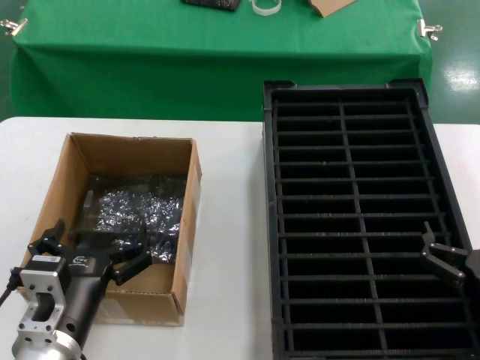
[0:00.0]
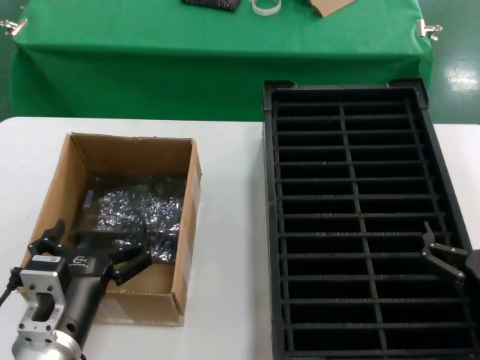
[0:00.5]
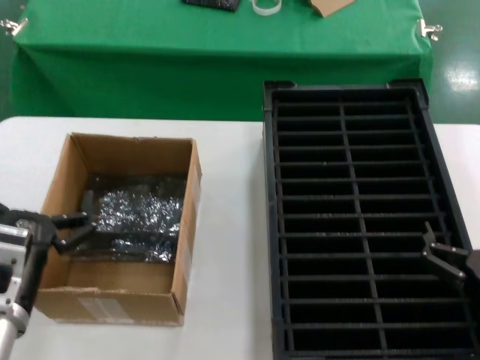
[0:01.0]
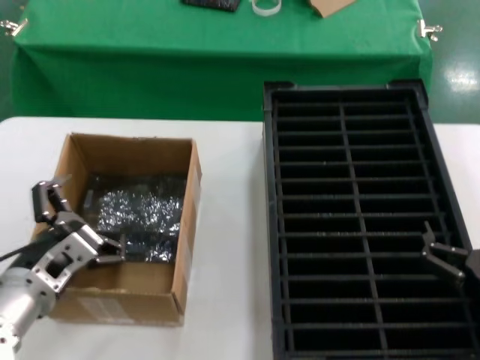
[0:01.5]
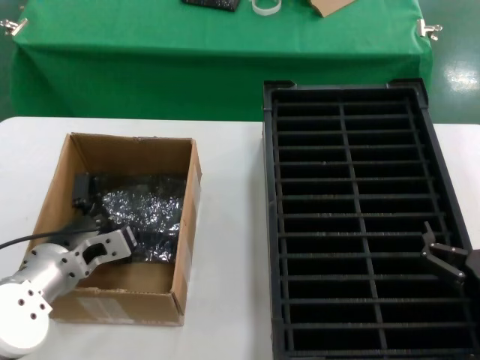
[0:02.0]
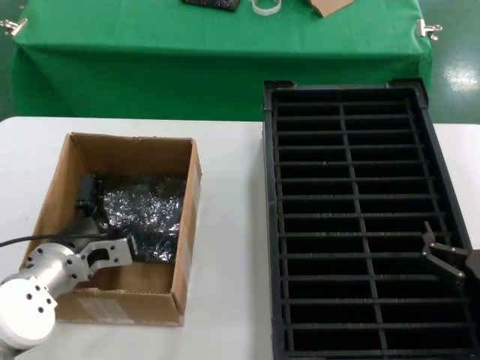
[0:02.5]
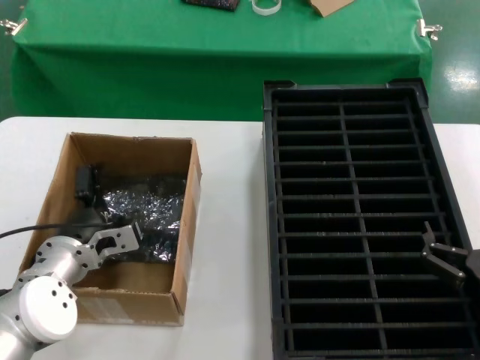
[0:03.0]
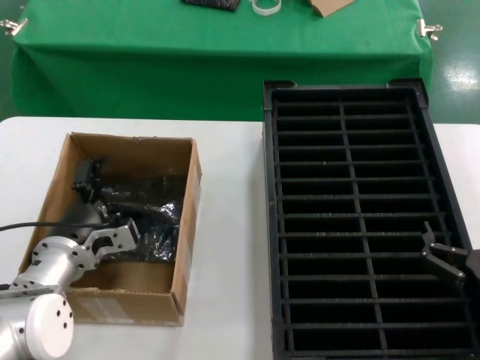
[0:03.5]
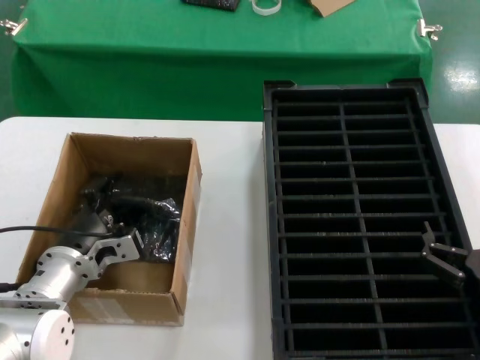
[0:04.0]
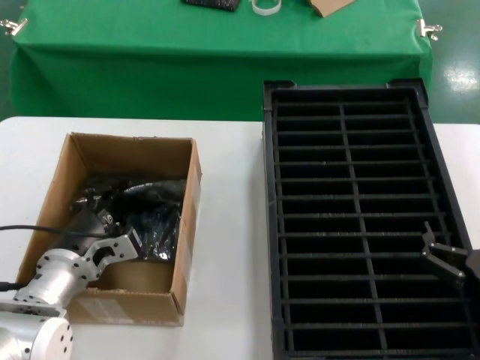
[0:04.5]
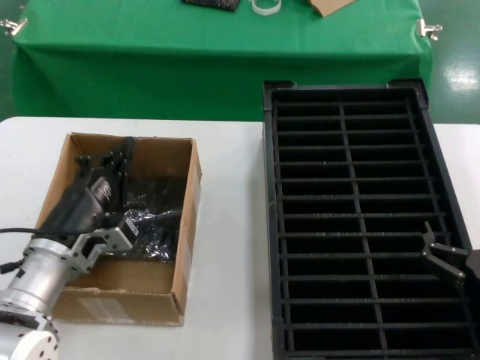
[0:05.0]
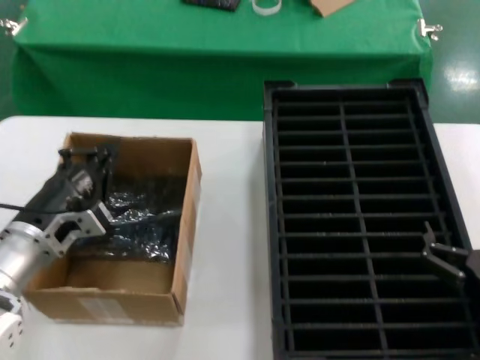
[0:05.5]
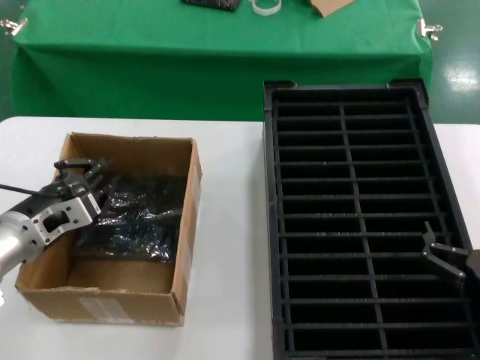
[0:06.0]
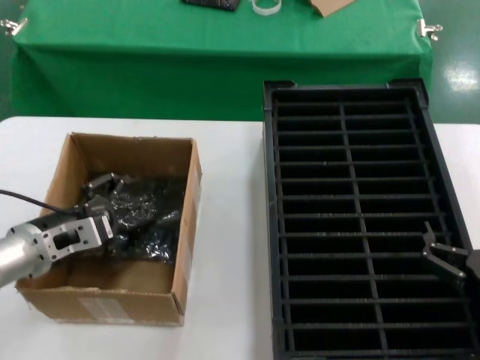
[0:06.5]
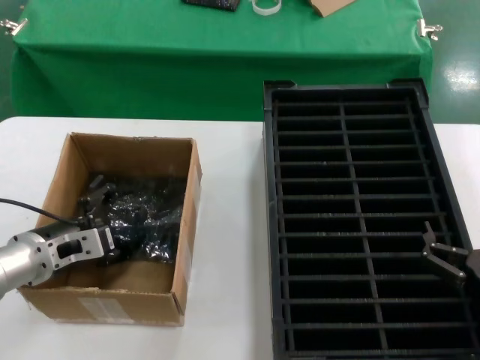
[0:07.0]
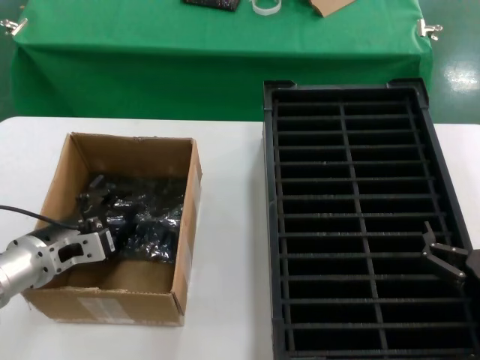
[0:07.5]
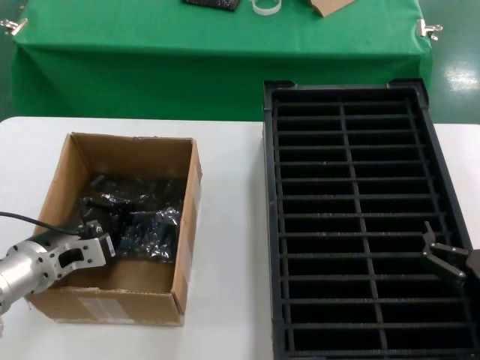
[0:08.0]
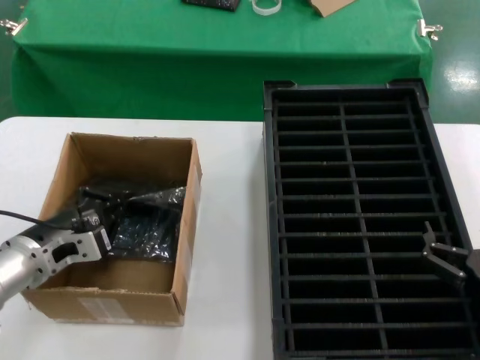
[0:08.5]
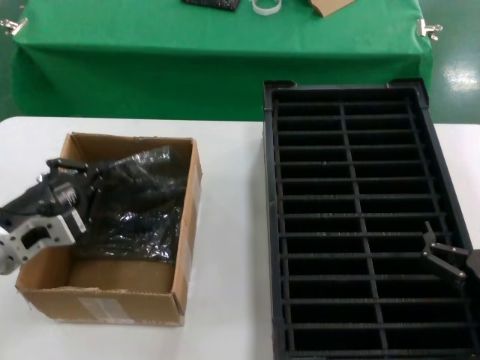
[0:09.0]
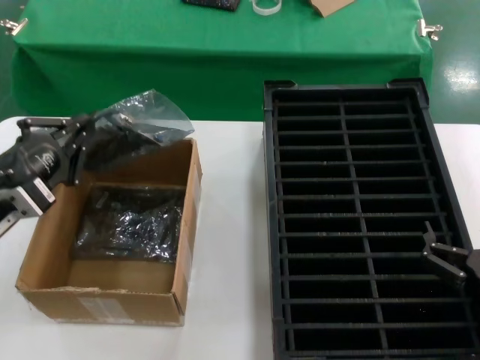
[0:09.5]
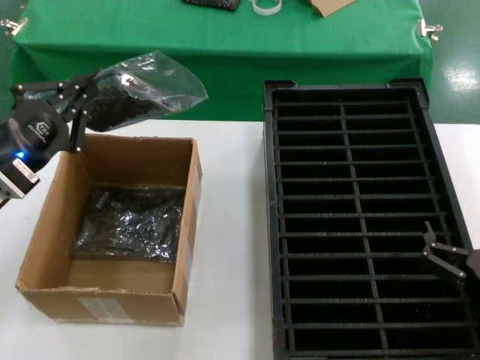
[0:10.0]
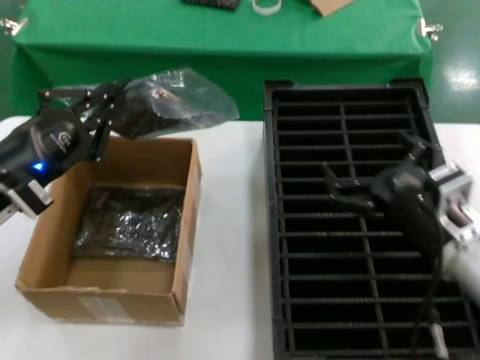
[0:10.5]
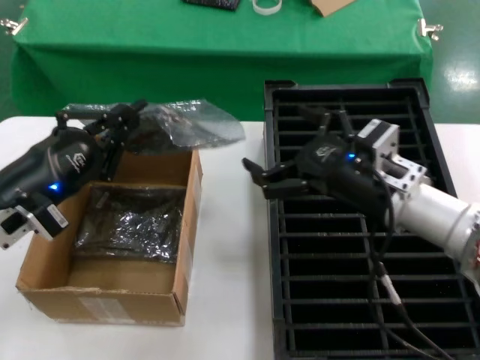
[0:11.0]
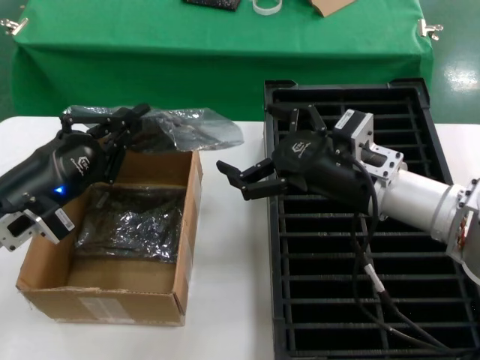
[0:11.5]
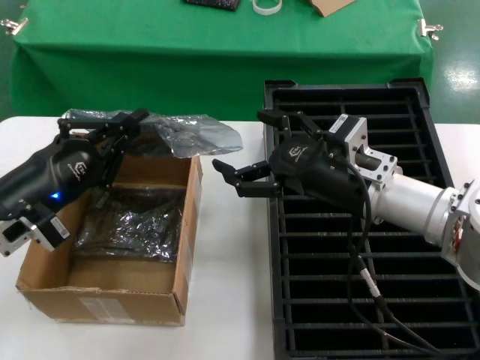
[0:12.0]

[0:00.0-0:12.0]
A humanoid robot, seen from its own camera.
Task of the whole recording: take out graphics card from box remove packaging put into black container.
Step, 0.0 to 8.0 s: Grasp the bag.
Step, 8.5 to 10.0 s: Lift the bag.
0.0 to 2.0 s: The left hand moves forward and to the left, approximately 15 cm.
2.0 to 4.0 s: The left hand shifts by some 5 cm.
4.0 to 6.0 s: The left hand is displaced to the left and upward by roughly 10 cm.
6.0 to 8.0 s: The hands move only a little.
8.0 to 10.0 s: The left hand goes some 10 cm upward.
10.0 to 12.0 s: The right hand shifts roughly 25 cm forward, upward and to the left.

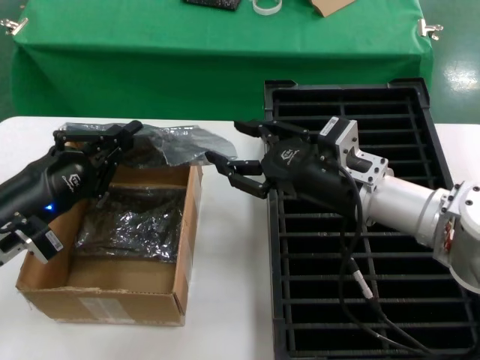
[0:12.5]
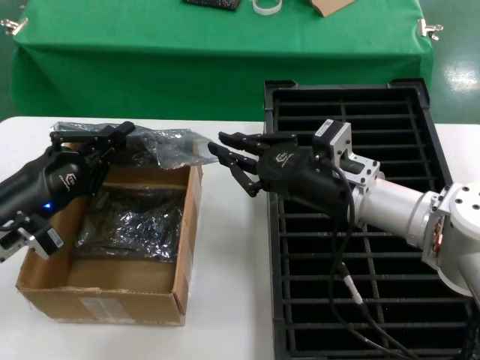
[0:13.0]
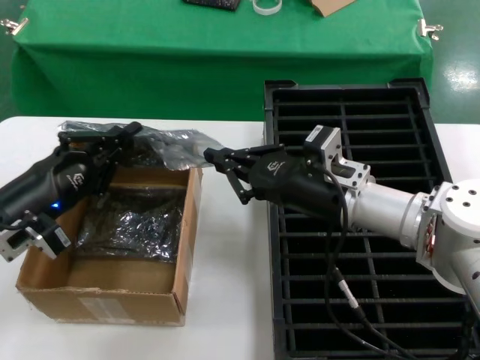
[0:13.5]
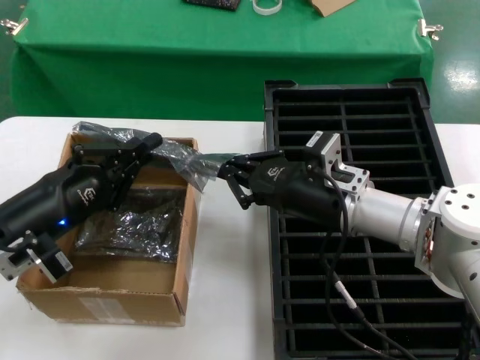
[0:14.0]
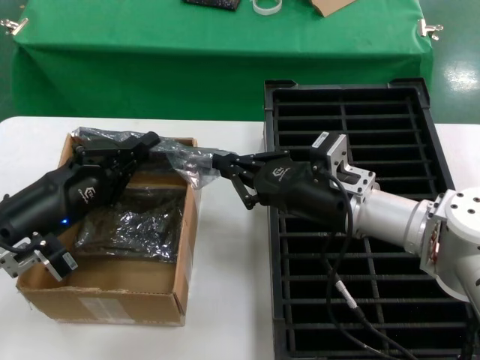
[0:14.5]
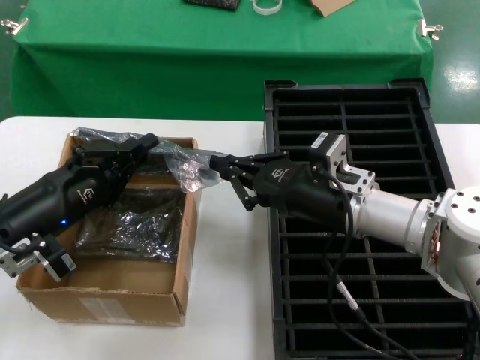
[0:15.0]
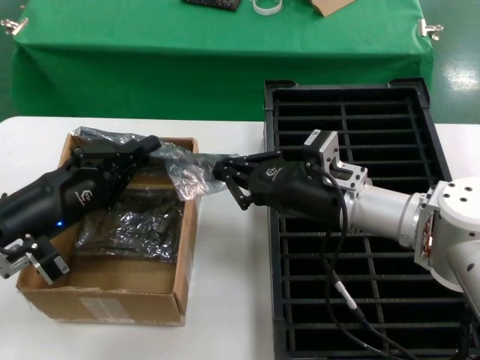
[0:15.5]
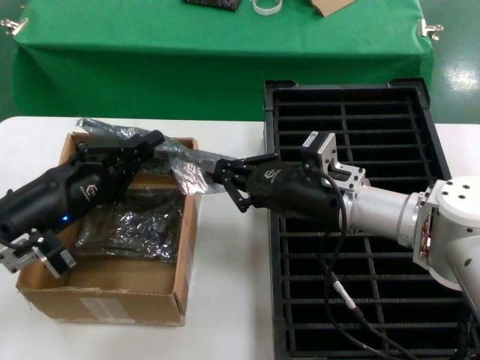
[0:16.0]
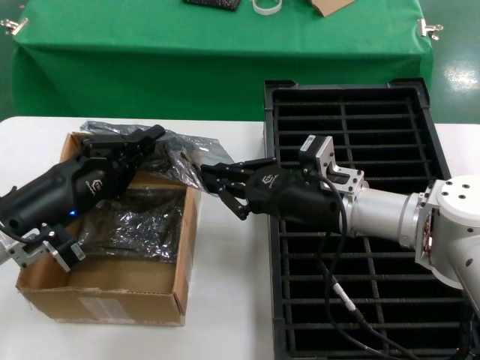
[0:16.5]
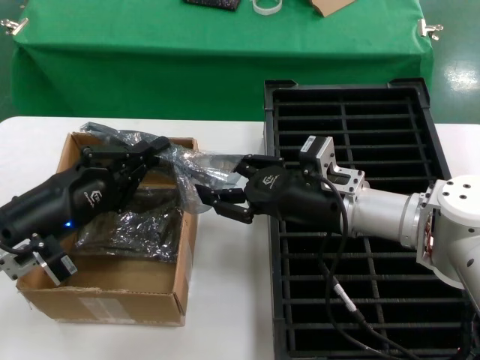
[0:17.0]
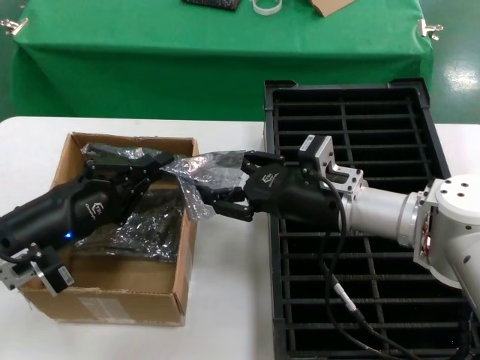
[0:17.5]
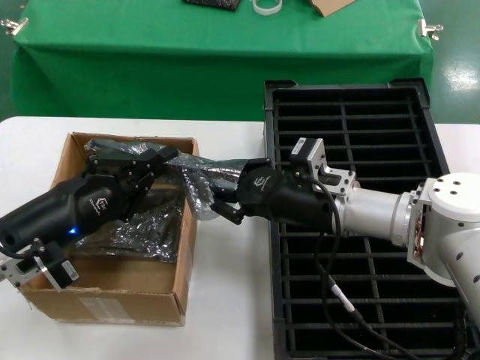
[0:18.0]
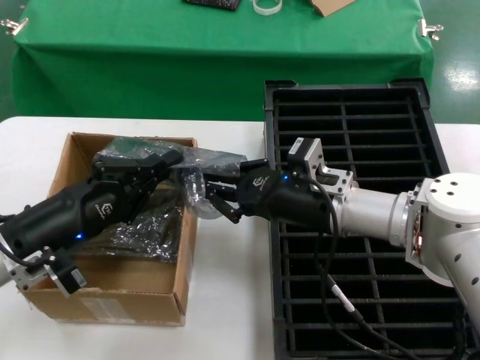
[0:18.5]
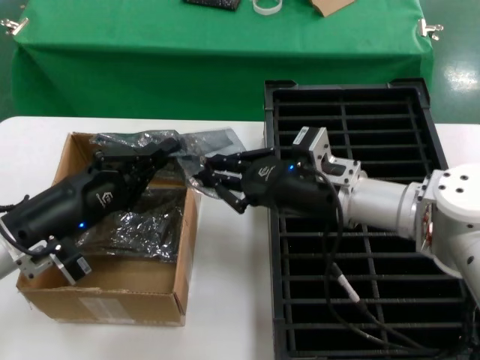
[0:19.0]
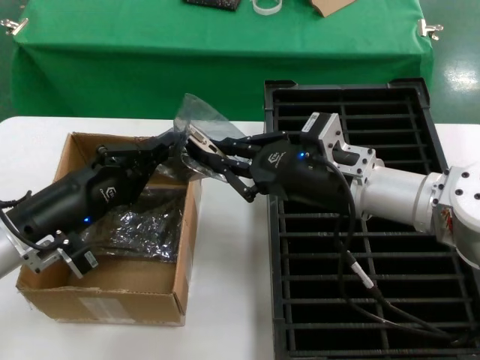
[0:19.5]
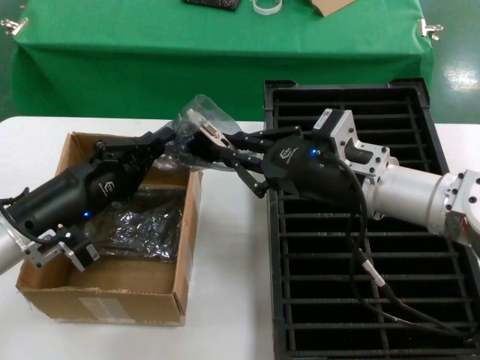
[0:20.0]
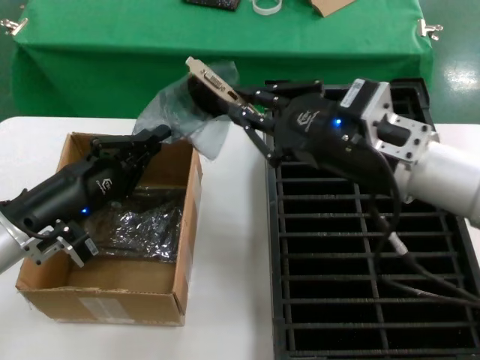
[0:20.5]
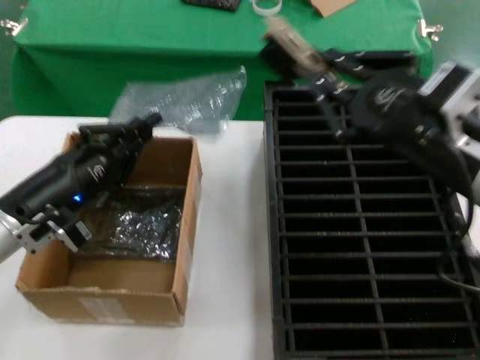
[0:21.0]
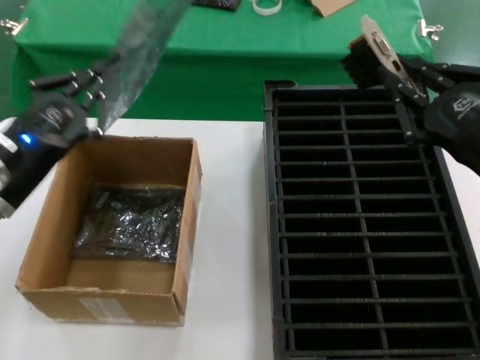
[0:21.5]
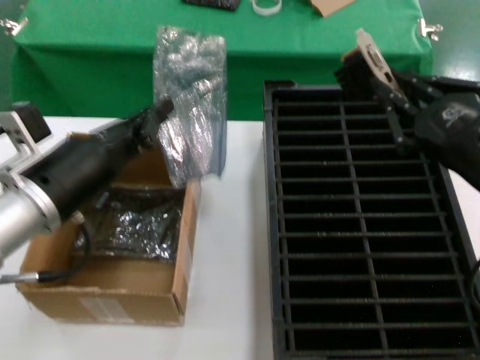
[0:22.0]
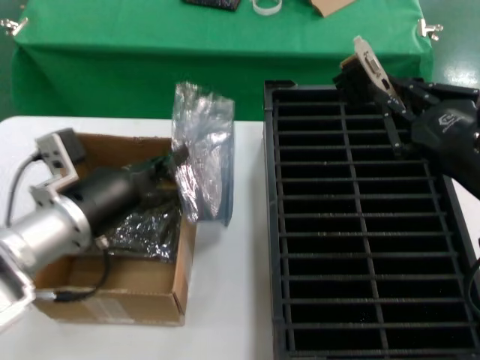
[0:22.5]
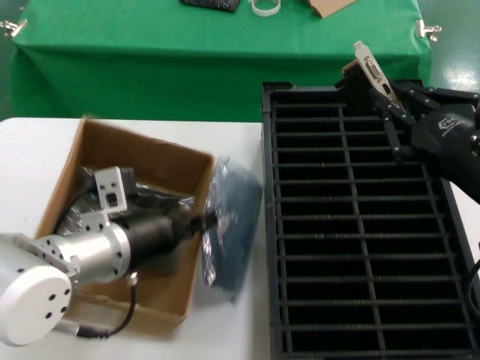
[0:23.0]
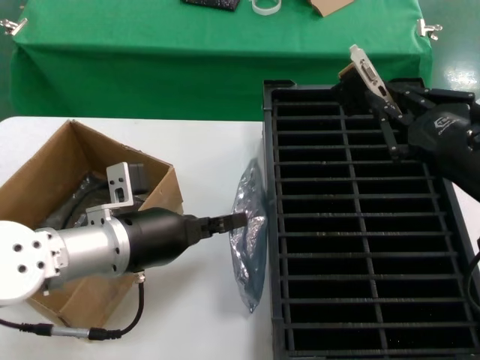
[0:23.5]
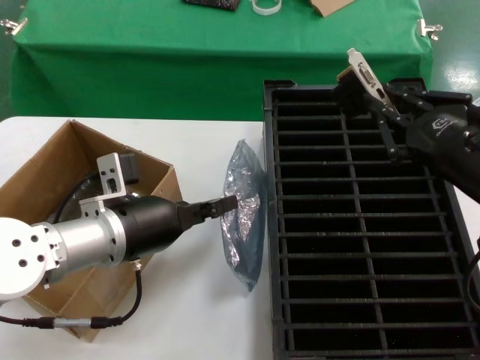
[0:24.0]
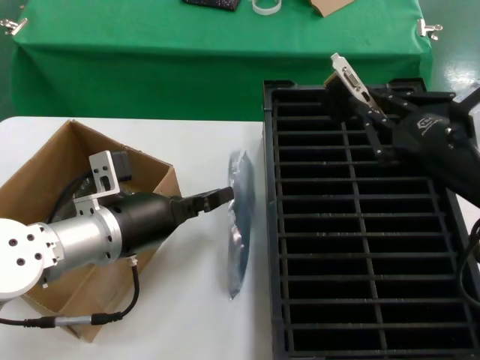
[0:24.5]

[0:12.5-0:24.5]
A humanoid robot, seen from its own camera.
Task of the whole recording: take out graphics card from box remove packaging put into black container.
Step, 12.5 to 21.0 s: Take out the hard disk of the bag.
12.5 to 18.5 s: There are only small adjustments of the hands.
18.5 to 20.5 s: The right hand is displaced upward and backward by approximately 15 cm.
20.5 to 22.5 s: The left hand goes roughly 10 cm to the right and upward. Meanwhile the right hand heads to the right and backward, covering about 10 cm.

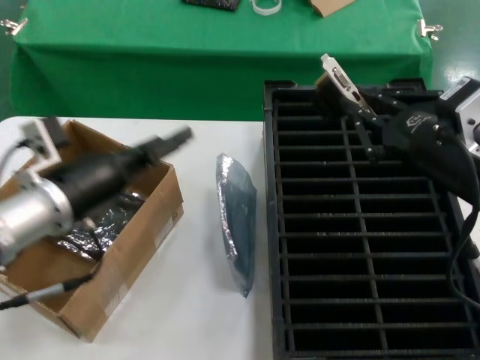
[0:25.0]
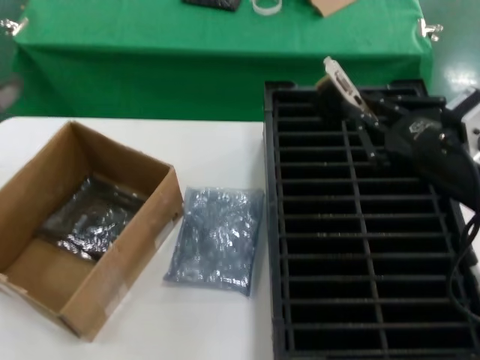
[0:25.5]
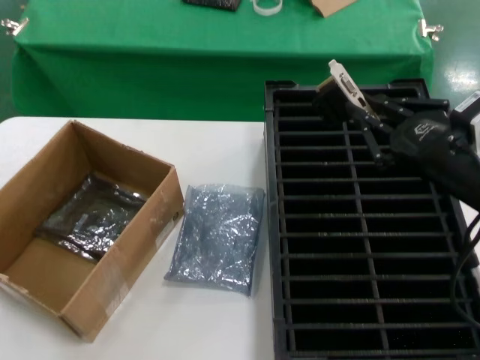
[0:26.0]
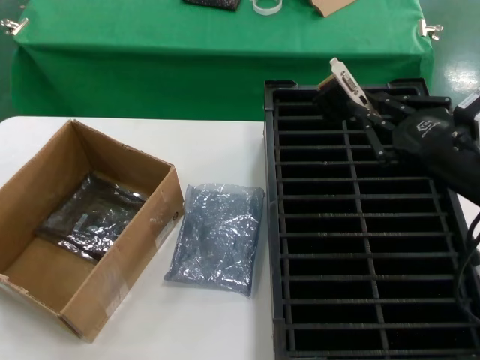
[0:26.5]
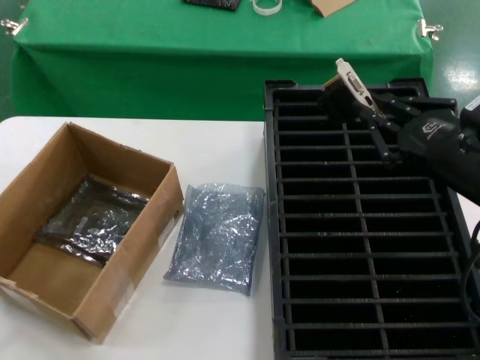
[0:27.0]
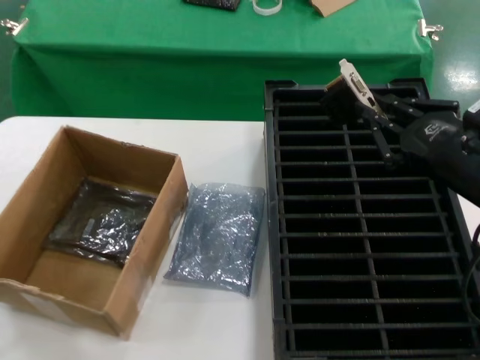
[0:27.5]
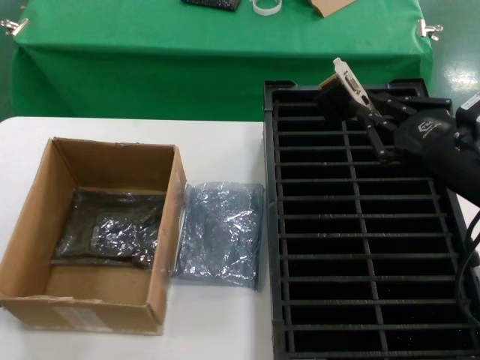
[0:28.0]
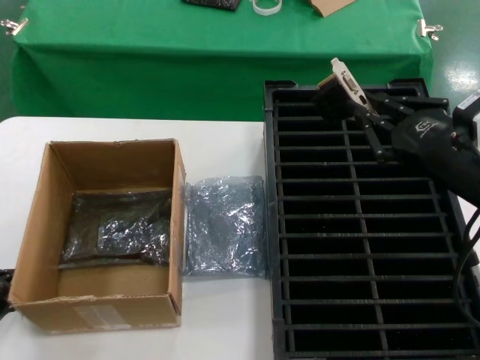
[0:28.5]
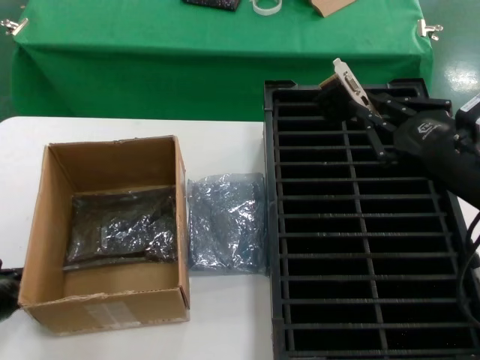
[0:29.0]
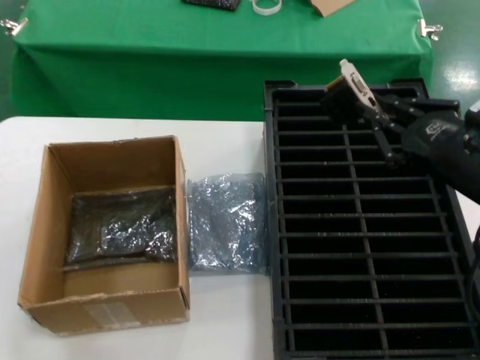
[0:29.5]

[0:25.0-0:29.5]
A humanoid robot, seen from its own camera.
Task of the whole recording: take out graphics card from box remove packaging put into black container.
25.0 to 27.0 s: The left hand shifts about 25 cm to the left and downward.
27.0 to 29.5 s: The left hand is displaced upward by approximately 5 cm.
